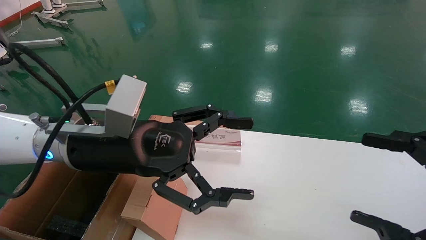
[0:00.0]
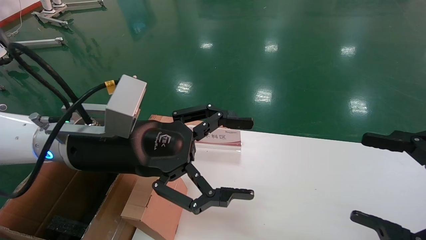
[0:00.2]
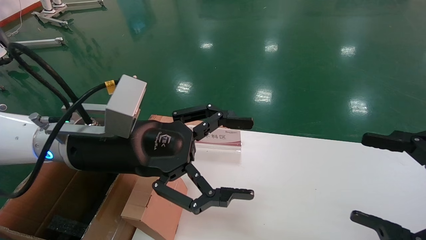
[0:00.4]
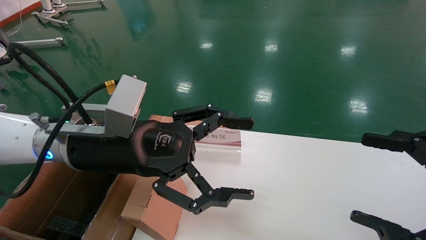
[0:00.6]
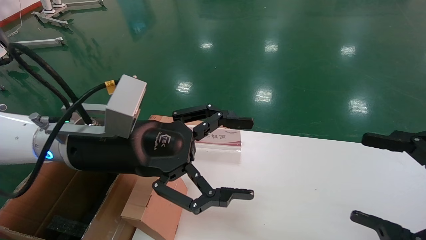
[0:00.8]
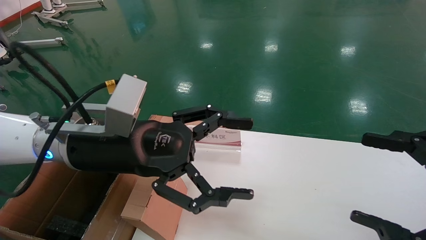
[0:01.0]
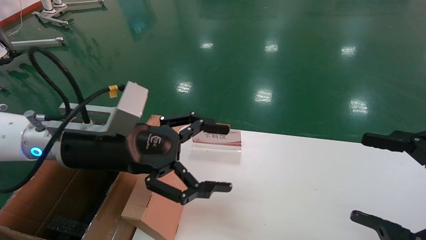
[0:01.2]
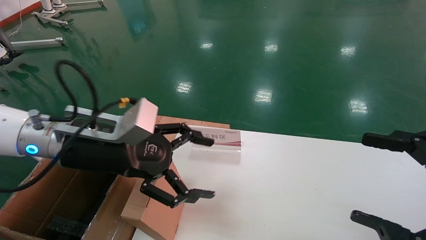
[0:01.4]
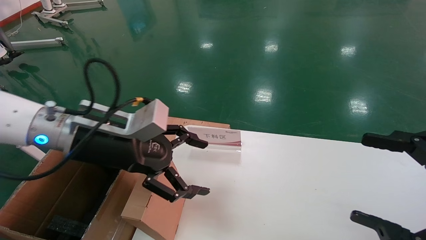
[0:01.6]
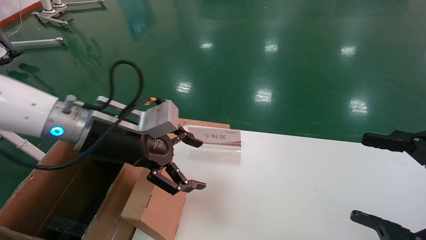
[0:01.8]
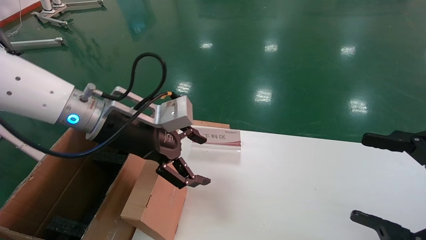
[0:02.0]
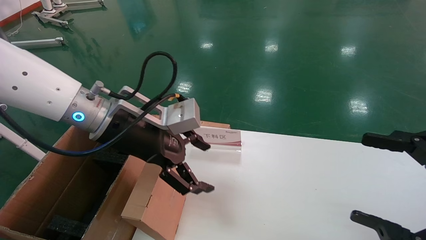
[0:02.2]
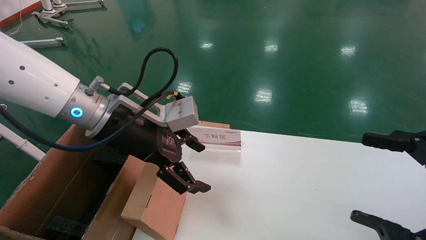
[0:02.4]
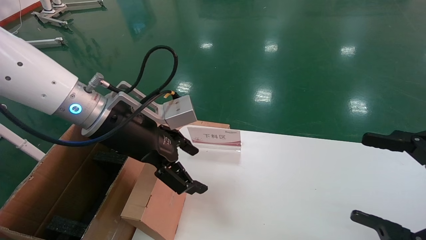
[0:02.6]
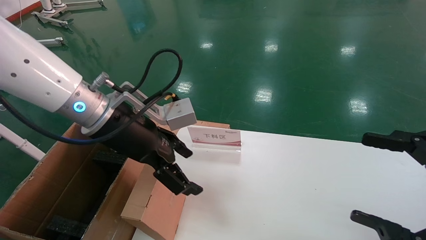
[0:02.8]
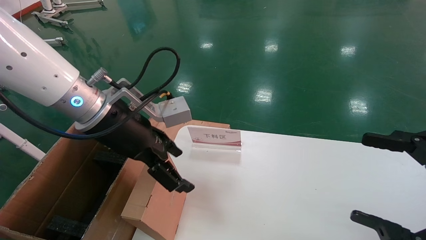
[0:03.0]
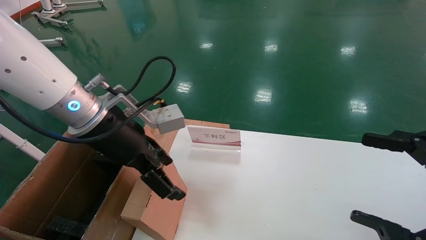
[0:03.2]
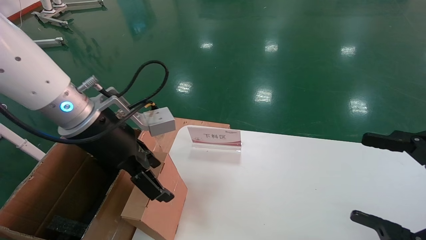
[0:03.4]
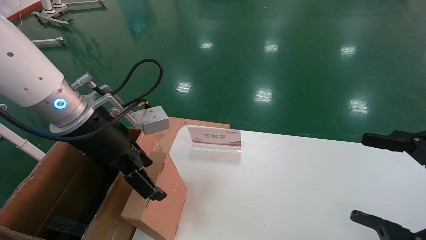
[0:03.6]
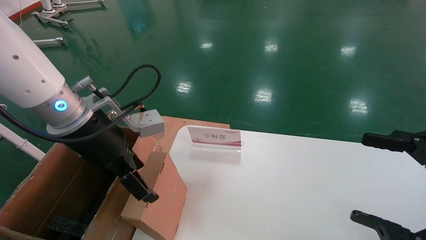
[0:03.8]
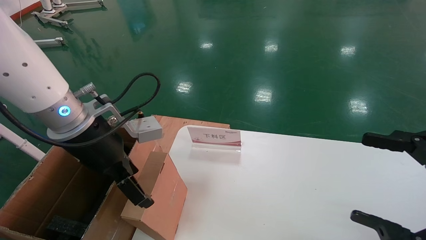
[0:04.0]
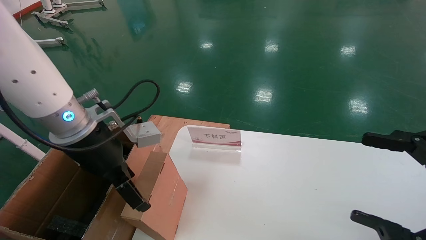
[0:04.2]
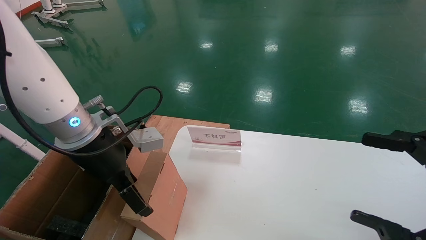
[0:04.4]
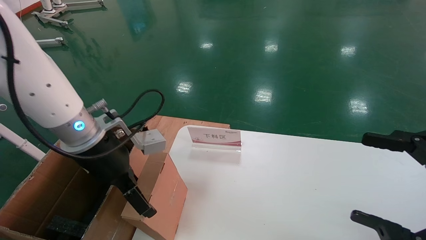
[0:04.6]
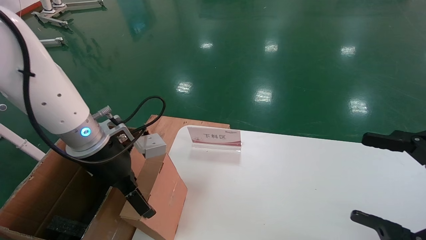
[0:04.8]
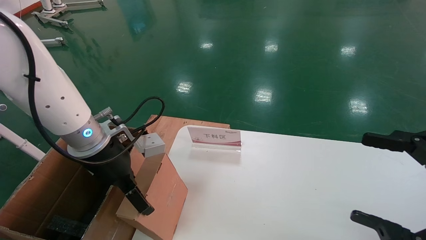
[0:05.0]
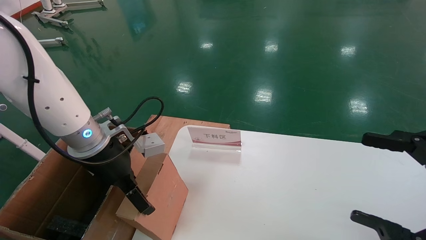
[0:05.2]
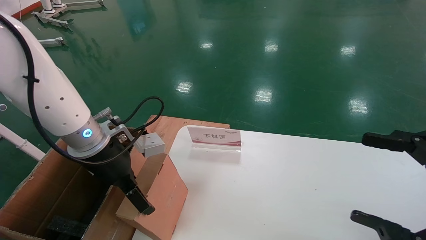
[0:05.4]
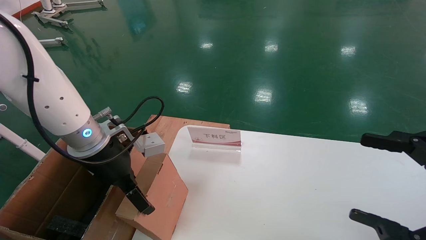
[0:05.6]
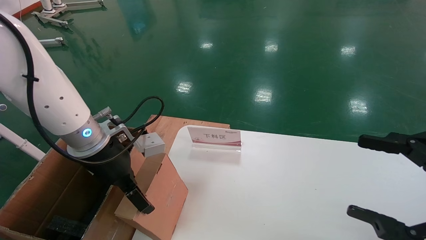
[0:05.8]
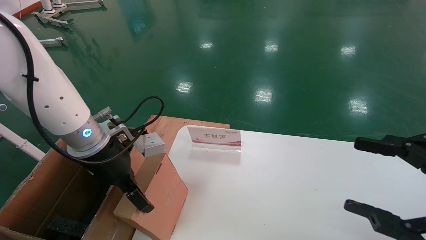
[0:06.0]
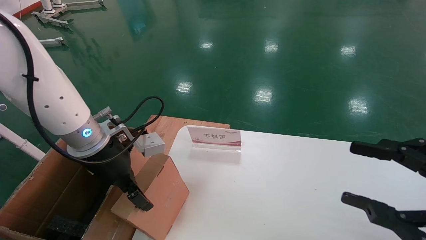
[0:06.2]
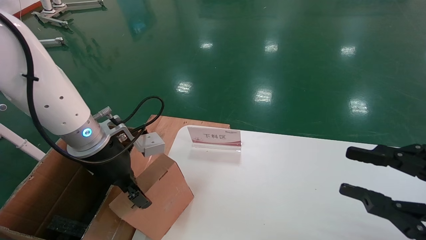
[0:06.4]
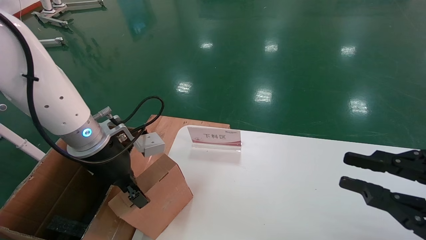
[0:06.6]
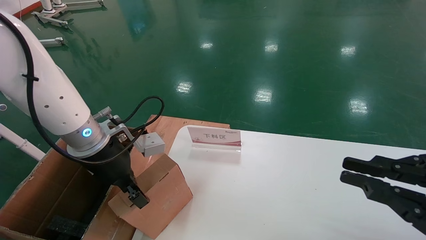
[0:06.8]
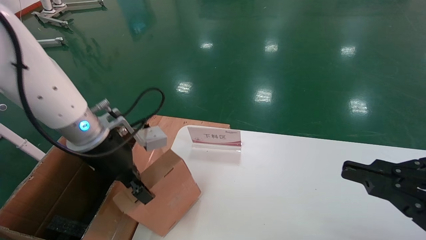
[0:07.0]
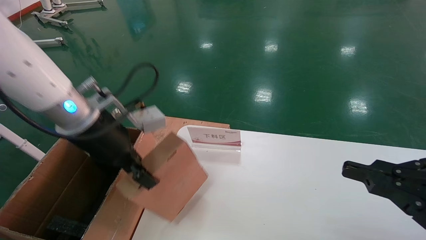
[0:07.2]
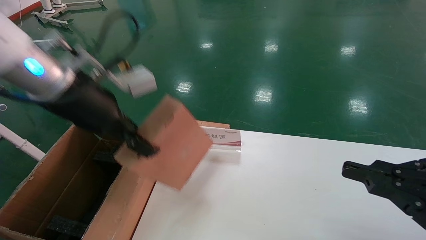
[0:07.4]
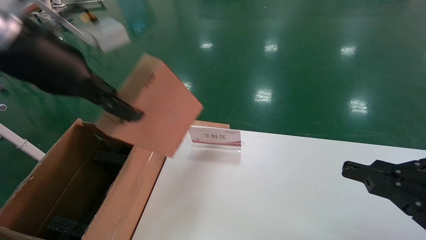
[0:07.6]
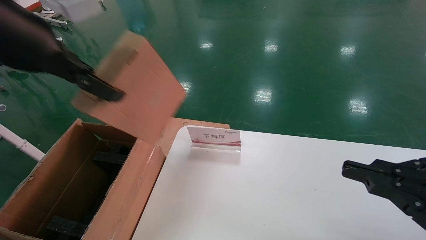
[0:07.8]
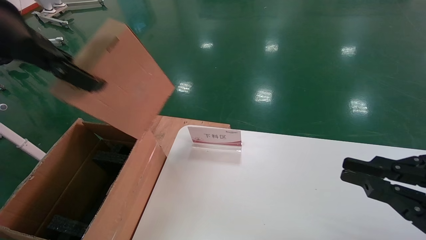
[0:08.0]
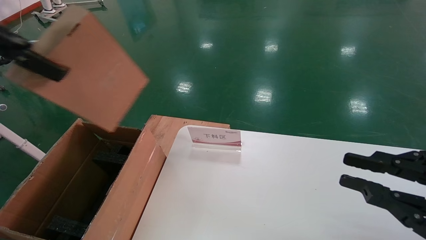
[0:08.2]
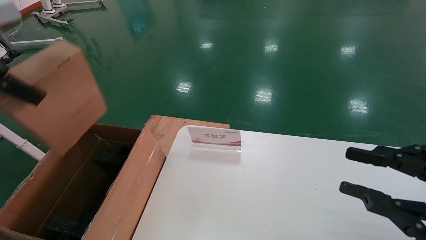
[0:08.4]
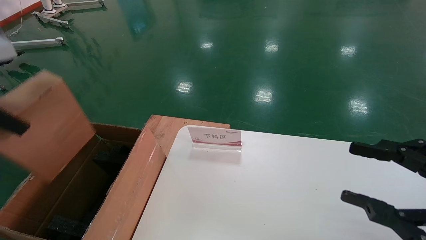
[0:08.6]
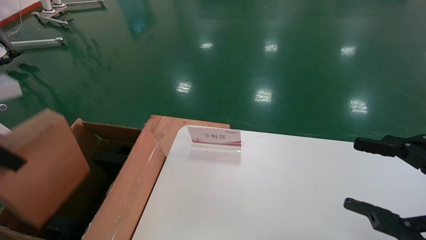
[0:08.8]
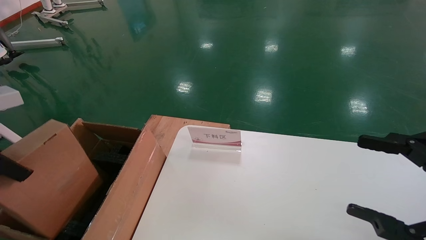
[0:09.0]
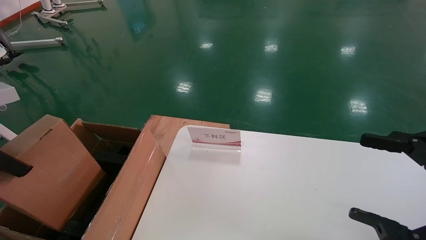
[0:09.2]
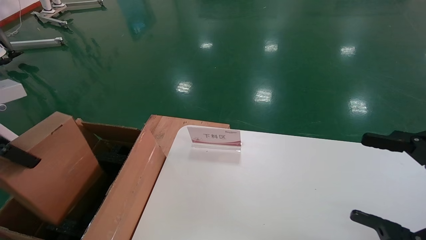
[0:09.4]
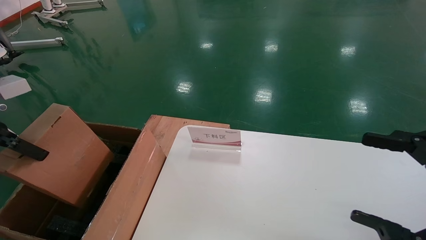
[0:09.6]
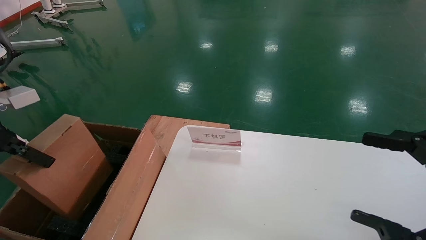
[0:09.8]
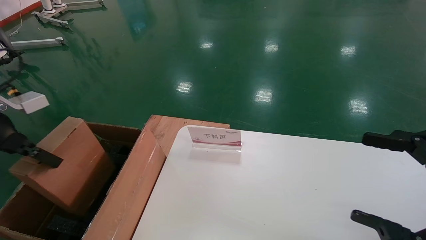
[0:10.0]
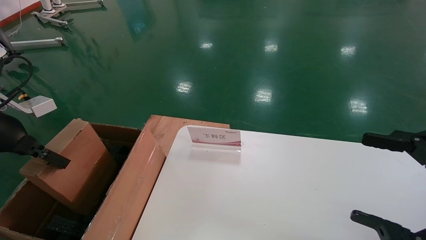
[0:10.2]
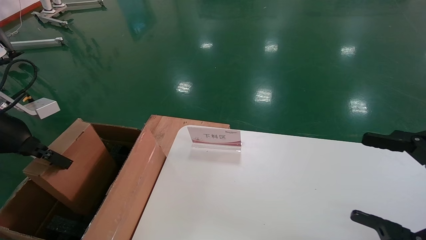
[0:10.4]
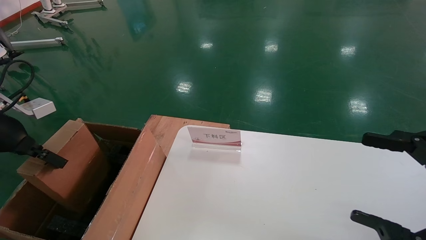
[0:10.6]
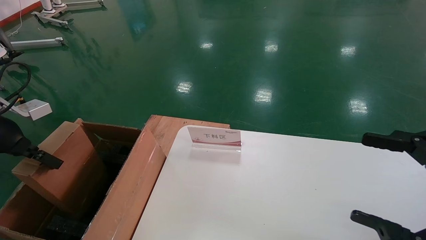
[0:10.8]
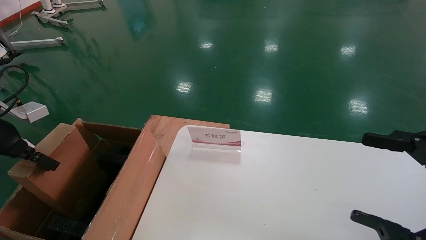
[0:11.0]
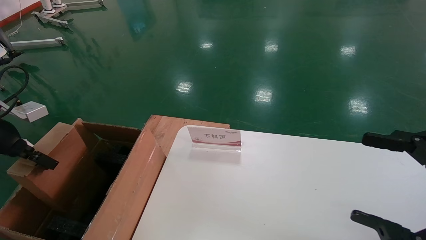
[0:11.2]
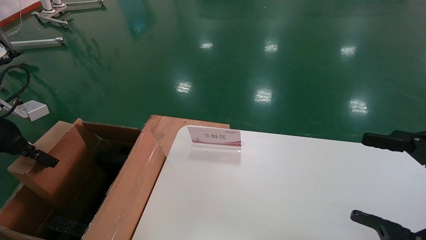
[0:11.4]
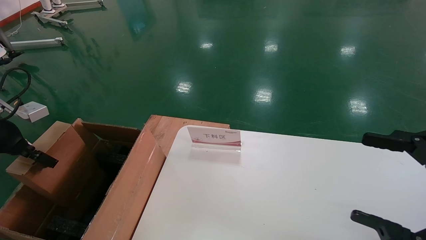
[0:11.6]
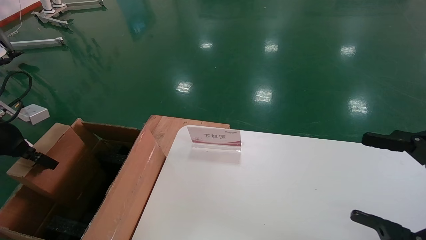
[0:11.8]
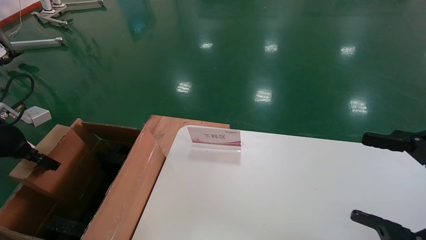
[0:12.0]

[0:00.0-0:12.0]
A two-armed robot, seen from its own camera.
Task of the whole recording: pick up the small cardboard box and load it into the large cardboard box.
Step, 0:01.4 to 0:06.4: Pick up the mouse and power cord box.
0:04.4 to 0:06.0: The grippers make only small movements.
0:06.0 to 0:07.6: The left gripper shifts approximately 15 cm upward, and closes. The right gripper closes its fingers.
0:07.6 to 0:09.0: The right gripper opens, while the left gripper is displaced to the left by about 15 cm.
0:09.0 to 0:10.4: The left gripper travels forward and downward by approximately 10 cm.
0:10.4 to 0:12.0: The left gripper travels to the left by roughly 5 cm.

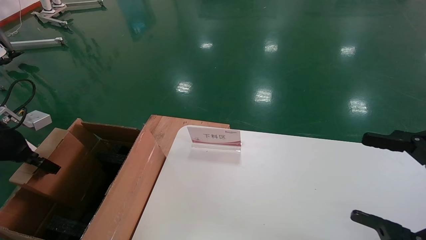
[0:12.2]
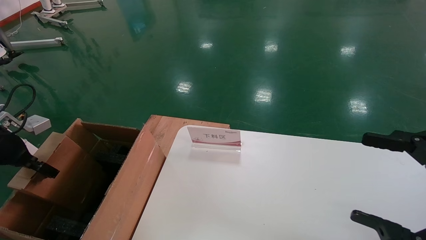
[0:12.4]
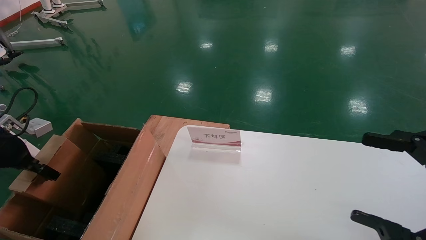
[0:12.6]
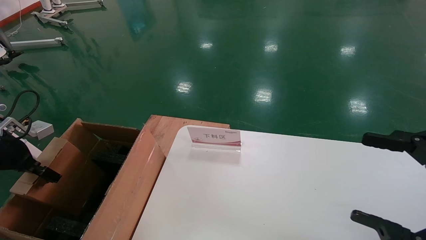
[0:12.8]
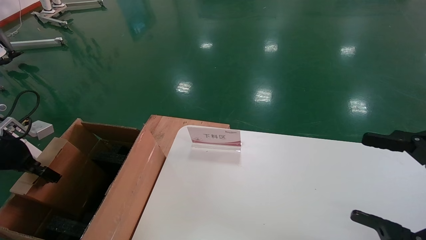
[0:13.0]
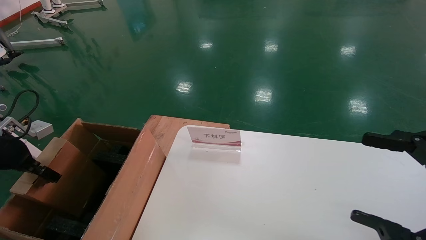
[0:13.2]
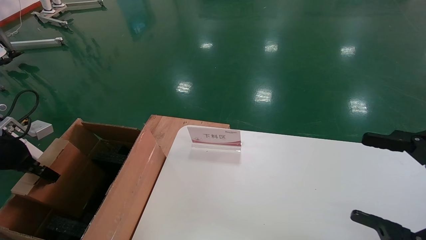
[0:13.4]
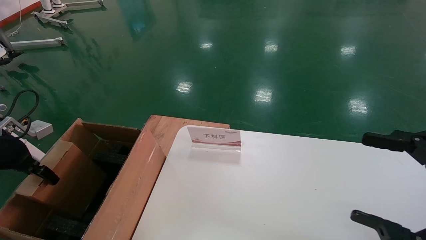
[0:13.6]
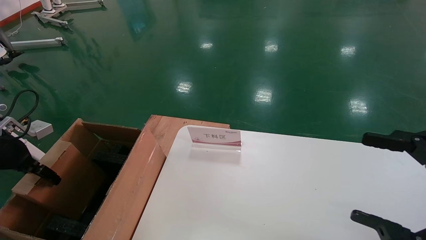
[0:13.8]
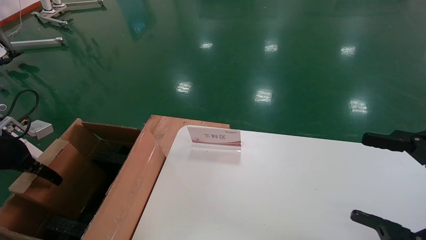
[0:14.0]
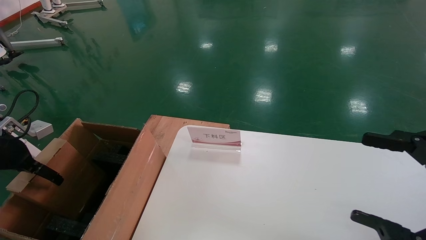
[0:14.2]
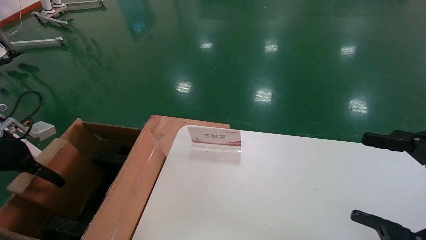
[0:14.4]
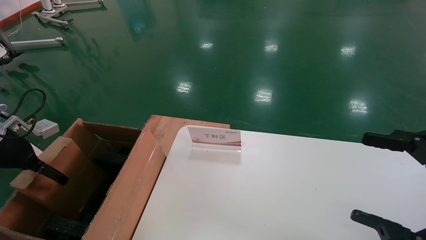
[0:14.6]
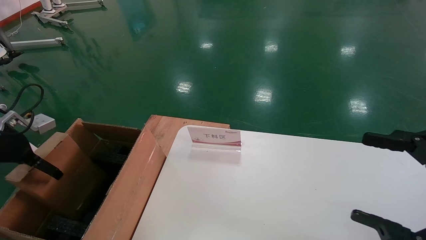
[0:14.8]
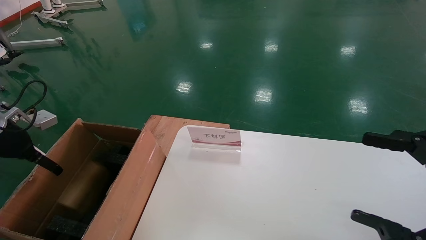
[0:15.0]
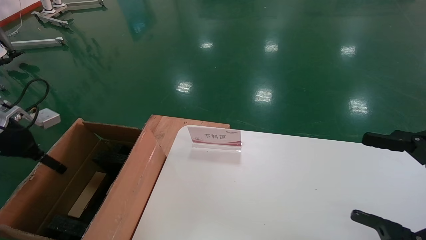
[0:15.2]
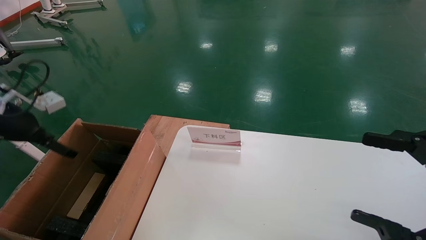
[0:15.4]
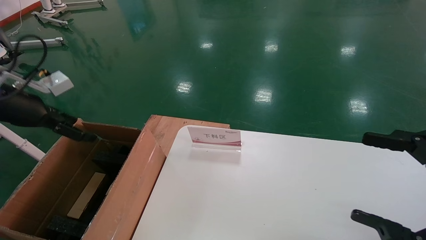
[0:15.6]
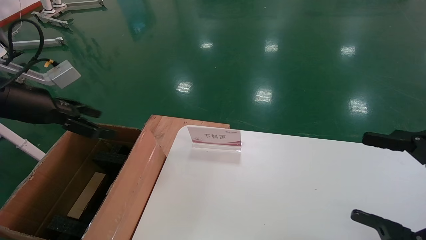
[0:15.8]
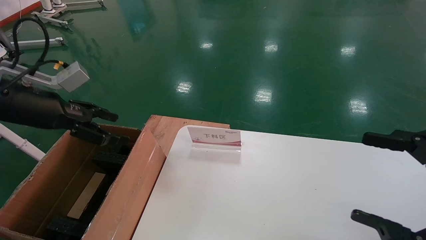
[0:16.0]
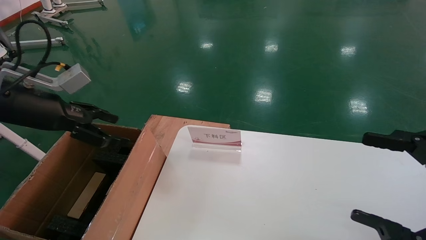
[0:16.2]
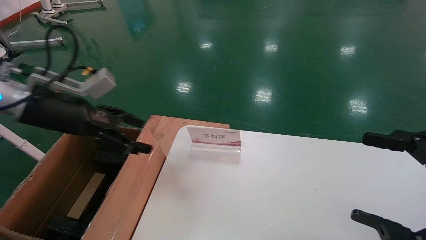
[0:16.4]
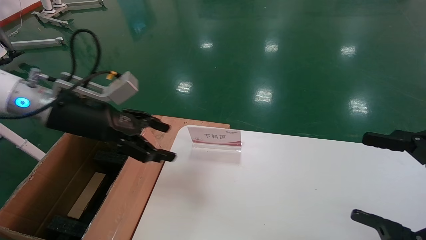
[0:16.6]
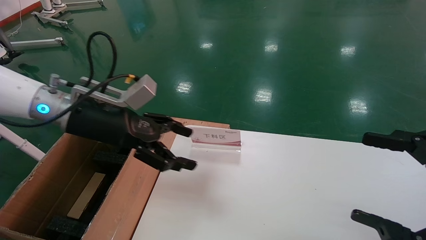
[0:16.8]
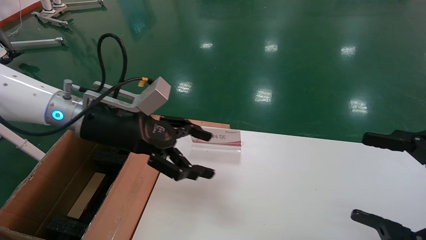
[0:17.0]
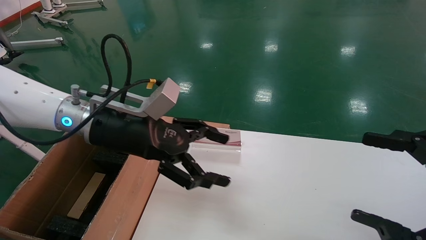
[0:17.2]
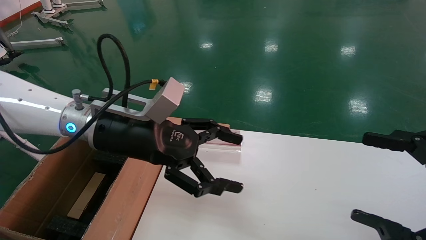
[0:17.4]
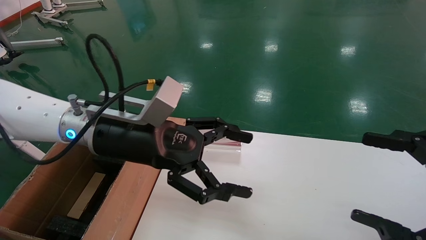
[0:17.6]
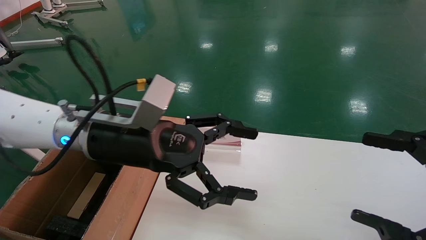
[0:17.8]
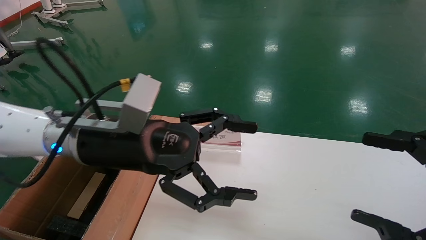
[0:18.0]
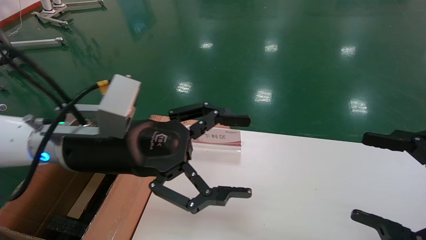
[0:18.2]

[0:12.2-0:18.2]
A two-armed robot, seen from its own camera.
Task of the whole recording: pick up the small cardboard box and load it into the large cardboard box.
0:12.2 to 0:13.8: The left gripper opens up.
0:13.8 to 0:15.2: The left gripper opens.
0:15.2 to 0:16.6: The left gripper heads to the right, covering approximately 20 cm.
0:16.6 to 0:18.2: The left gripper heads to the right and backward, covering about 15 cm.
